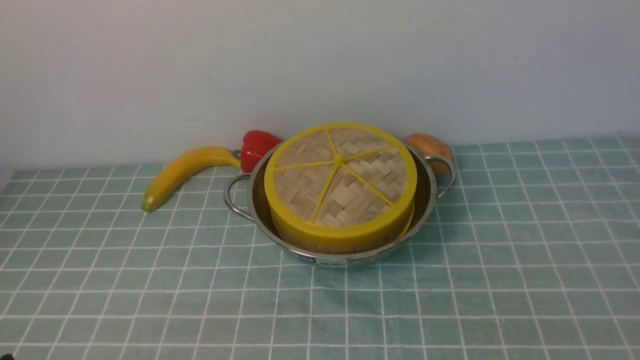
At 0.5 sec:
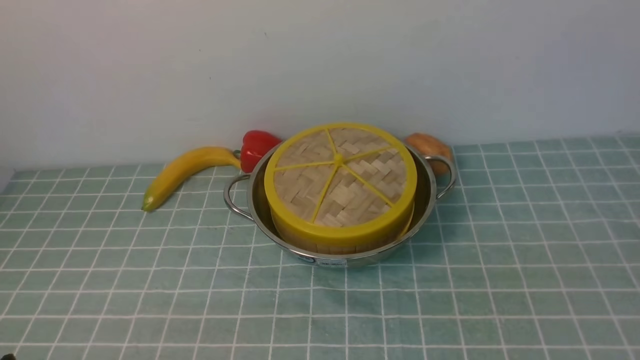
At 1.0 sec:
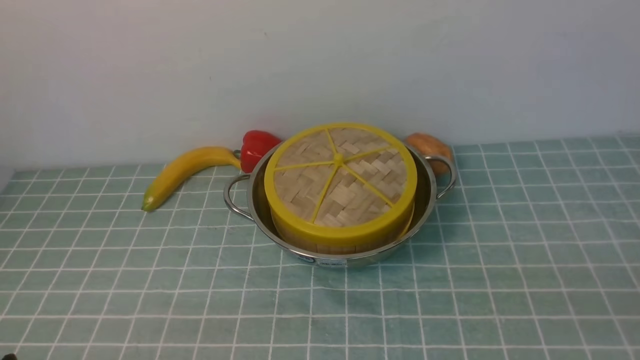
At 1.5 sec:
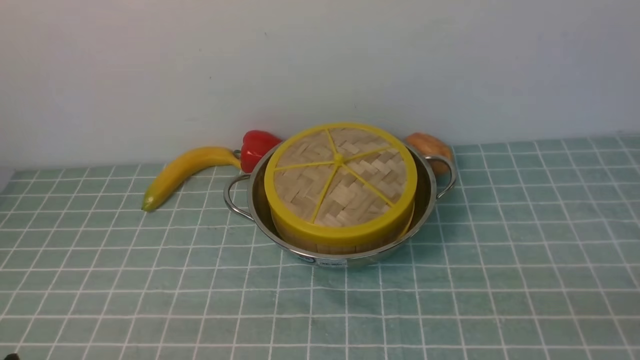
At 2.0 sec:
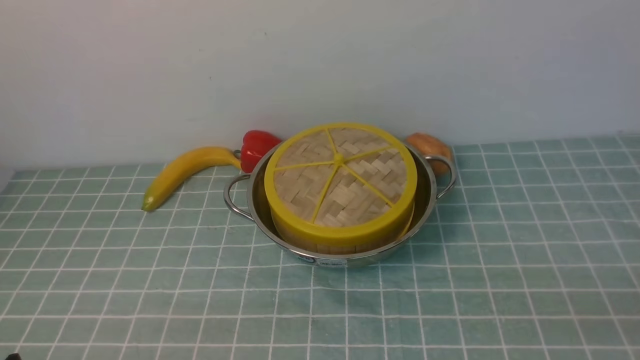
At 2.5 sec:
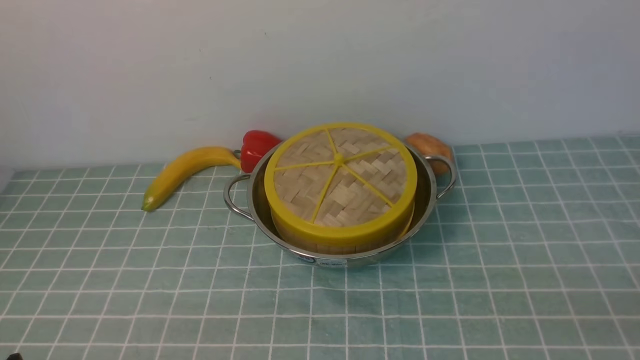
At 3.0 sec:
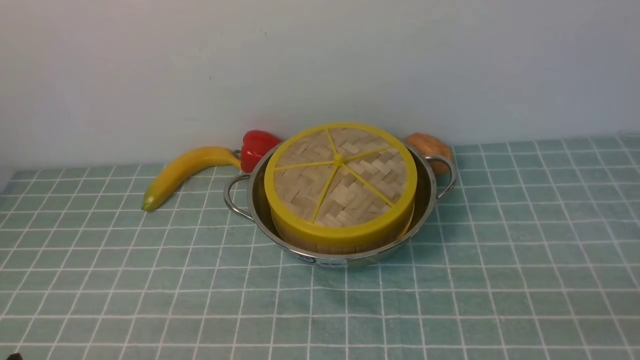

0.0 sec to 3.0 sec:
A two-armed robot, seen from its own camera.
Task of the whole recording: place the steamer in the pot on the blue tablecloth, and put the lid on the steamer.
1.5 sec to 3.0 sec: Neither gripper changes place.

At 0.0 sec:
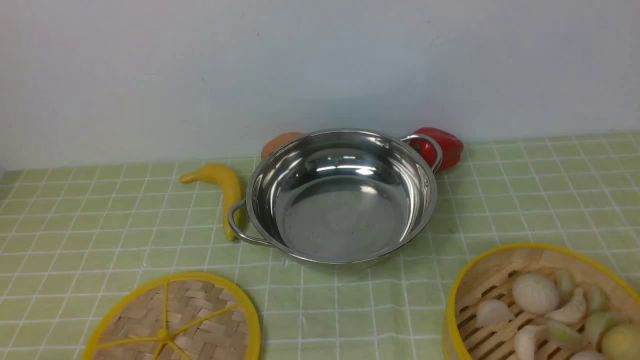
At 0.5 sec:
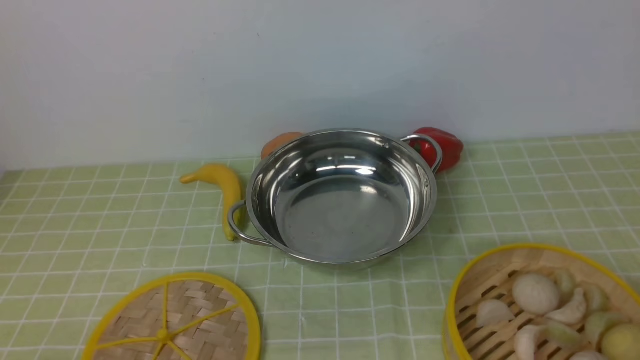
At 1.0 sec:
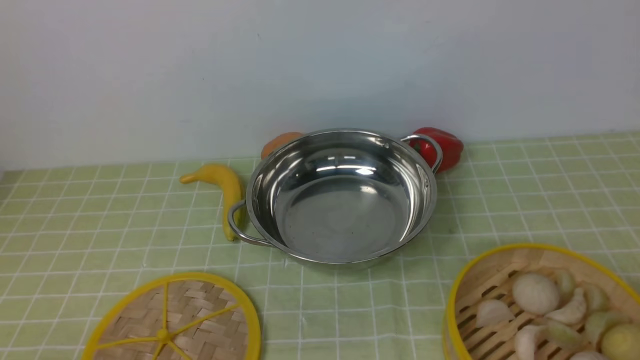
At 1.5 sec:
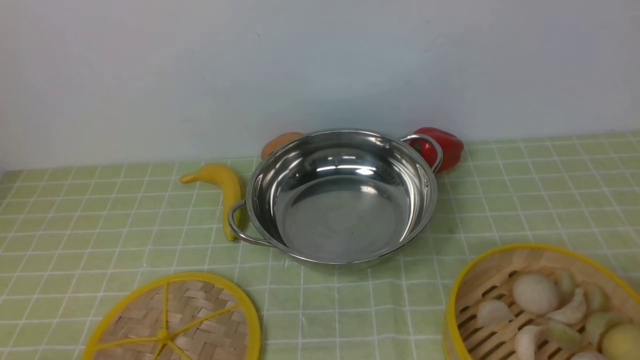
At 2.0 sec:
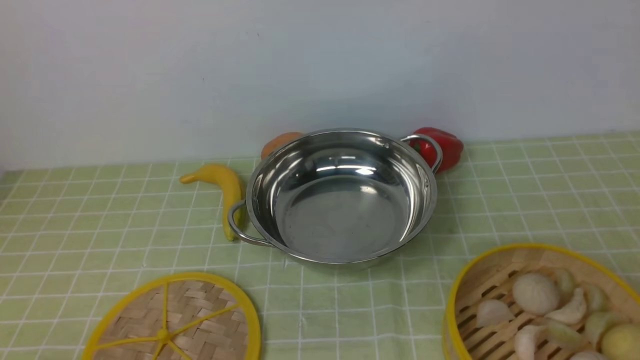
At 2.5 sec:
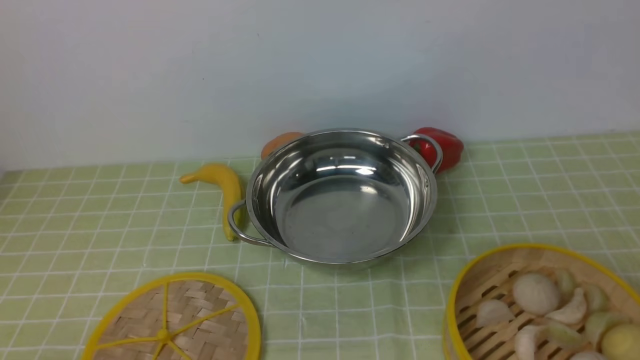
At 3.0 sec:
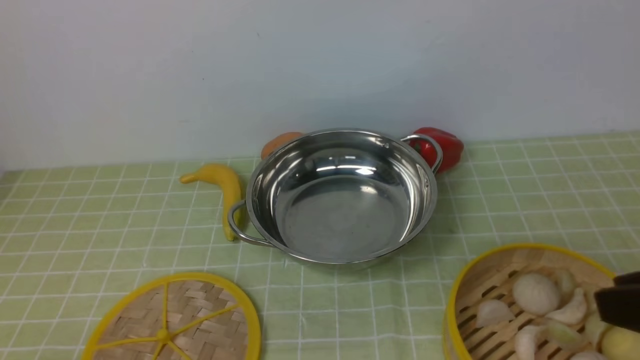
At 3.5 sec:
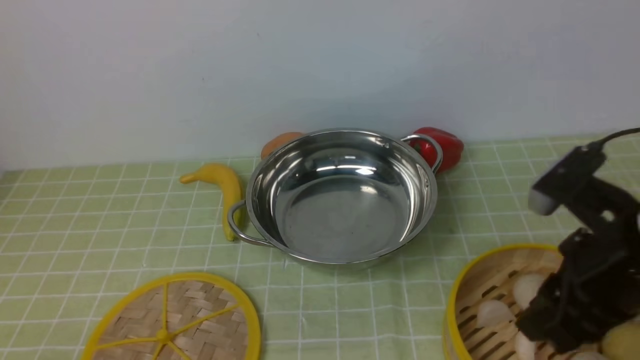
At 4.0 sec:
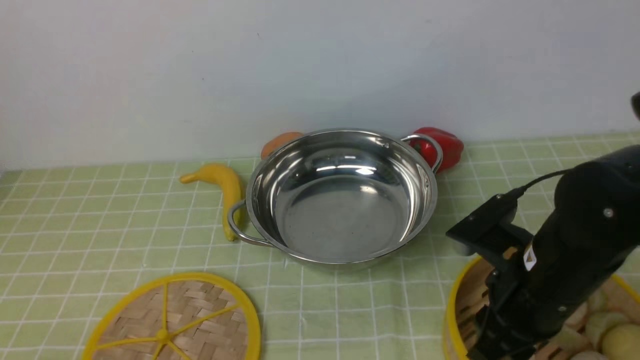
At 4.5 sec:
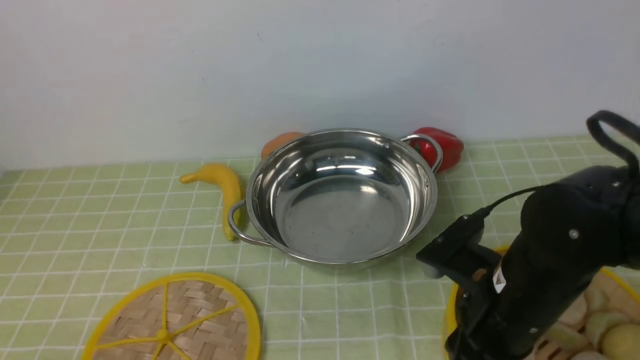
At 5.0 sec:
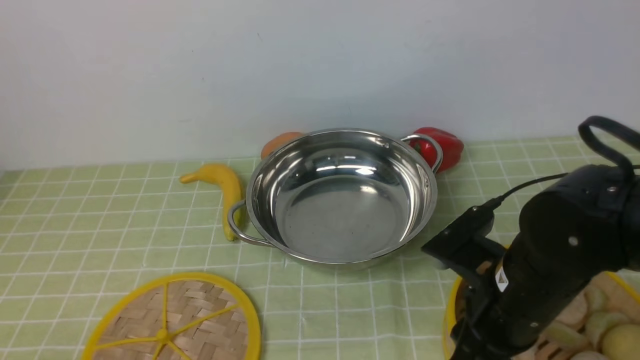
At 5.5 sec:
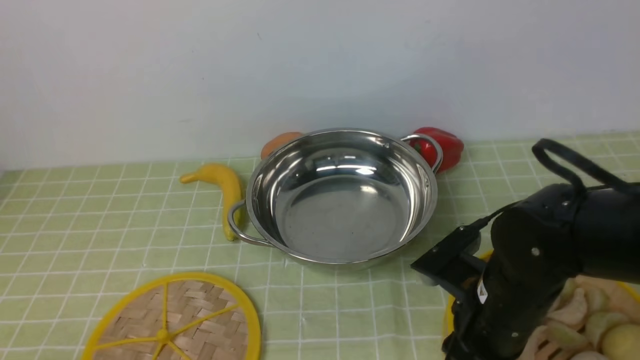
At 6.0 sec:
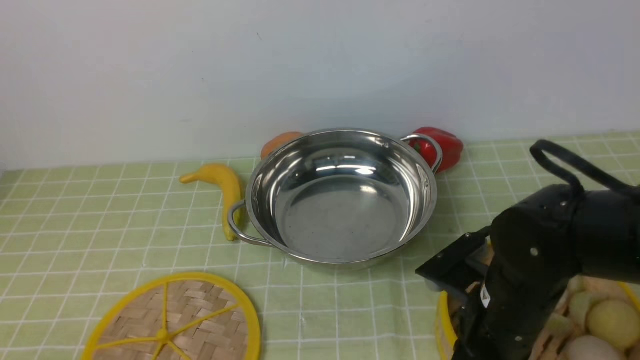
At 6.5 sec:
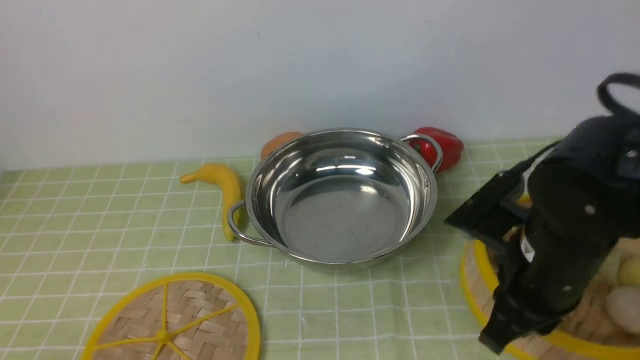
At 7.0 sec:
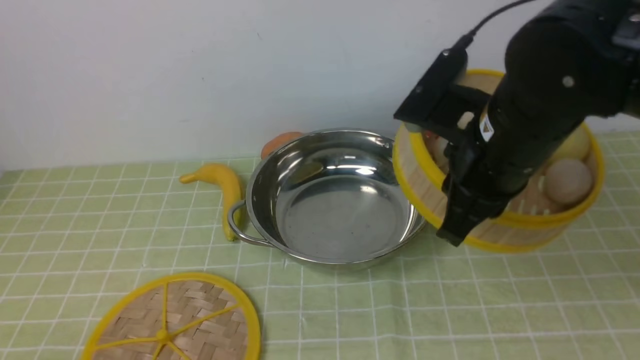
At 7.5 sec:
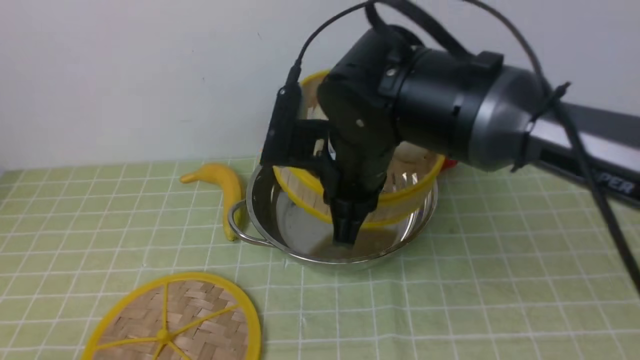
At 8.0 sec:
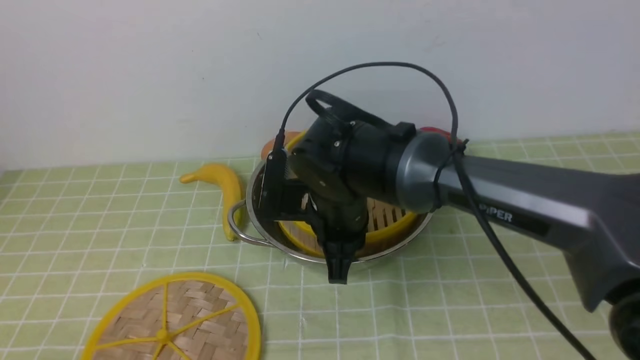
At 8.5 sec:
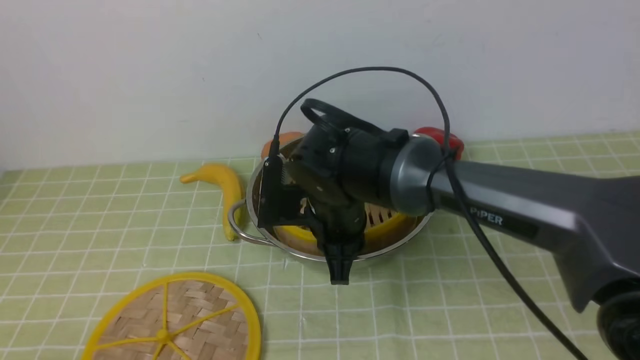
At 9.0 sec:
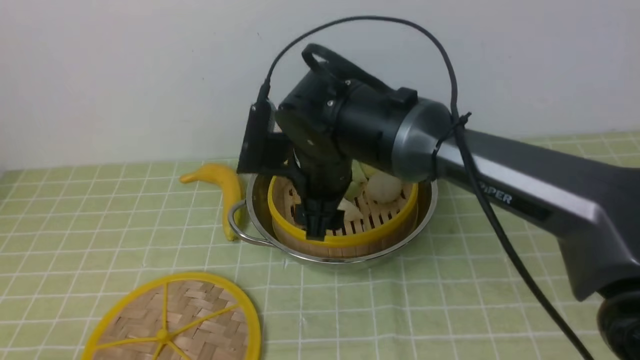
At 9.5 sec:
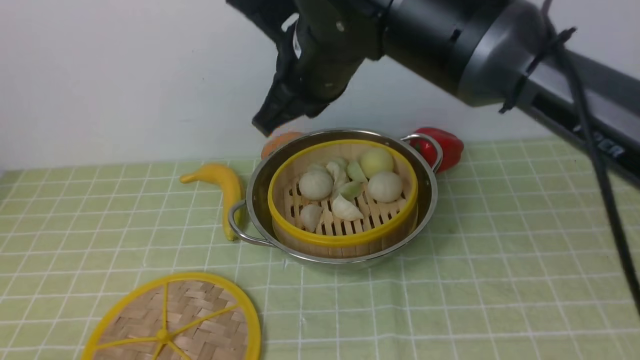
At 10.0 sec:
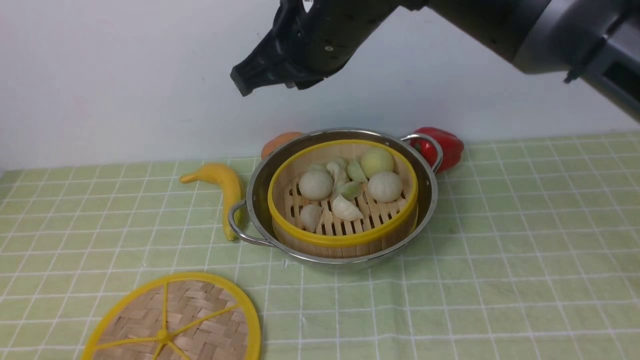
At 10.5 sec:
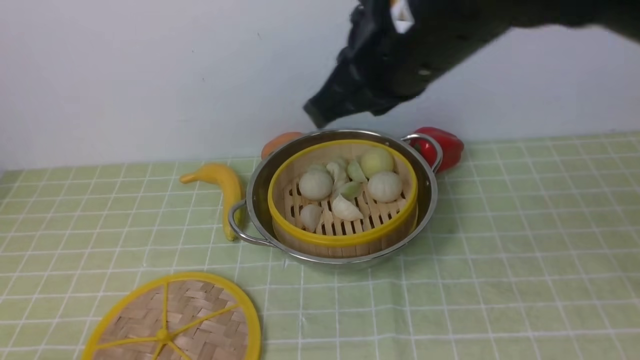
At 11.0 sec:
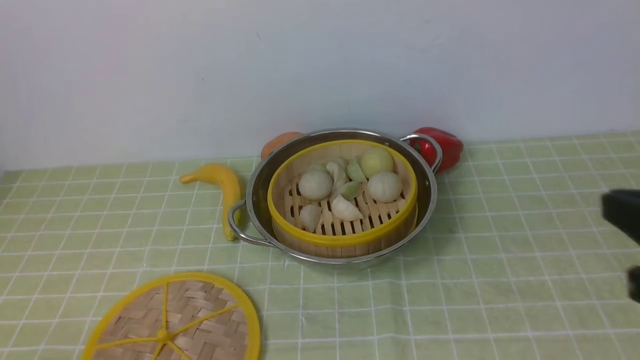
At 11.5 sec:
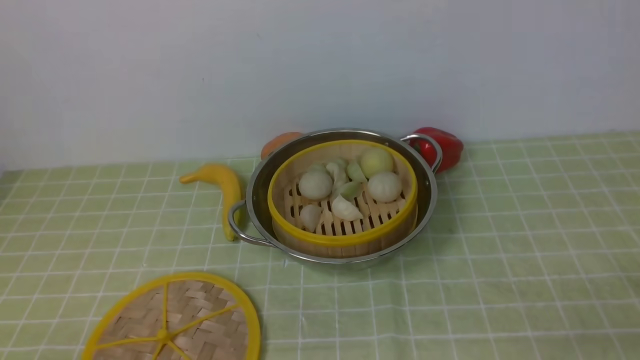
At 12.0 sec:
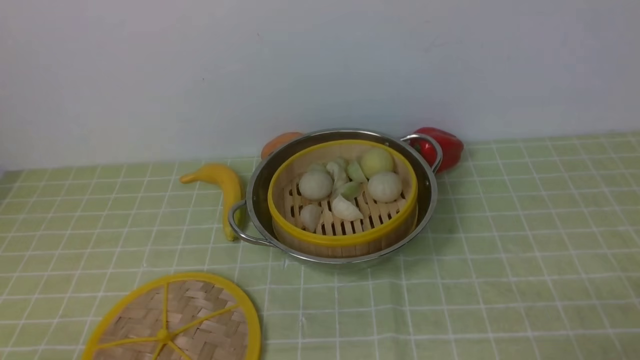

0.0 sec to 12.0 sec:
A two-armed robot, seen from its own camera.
Task of the whole recording: place the steamer in the pot on the green tablecloth, and put the lid on the steamer.
Step, 0.0 sec to 6.5 sec: use the right arm to lift the steamer closest to it.
Step, 7.0 sec to 9.5 sec: use the right arm to put the steamer into the iron steamer pot in the middle.
2.0 sec to 4.0 sec: The right gripper heads forward, to the left and downward, covering some 25 cm.
4.0 sec to 6.0 sec: The right gripper closes up.
6.0 sec to 8.0 sec: The right gripper is displaced to the left and forward by roughly 20 cm.
8.0 sec to 10.0 sec: The right gripper moves upward, some 20 cm, and opens, then closes again.
10.0 sec to 12.0 sec: The right gripper shifts about 50 cm to the right, backward and downward, and opens up.

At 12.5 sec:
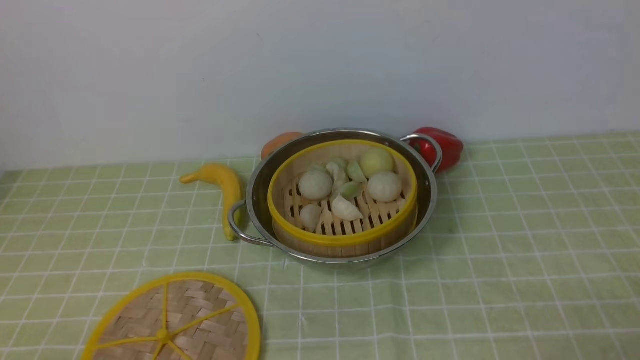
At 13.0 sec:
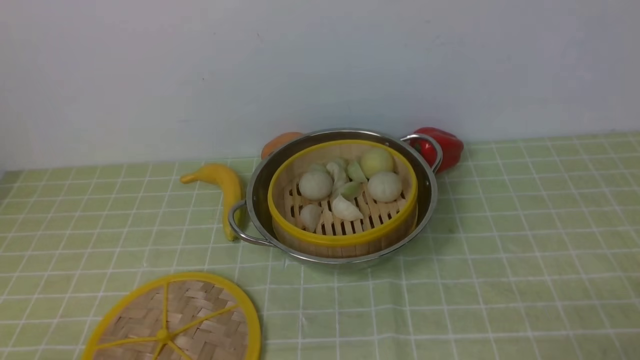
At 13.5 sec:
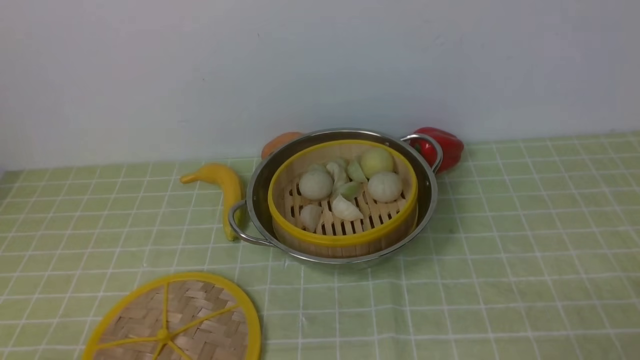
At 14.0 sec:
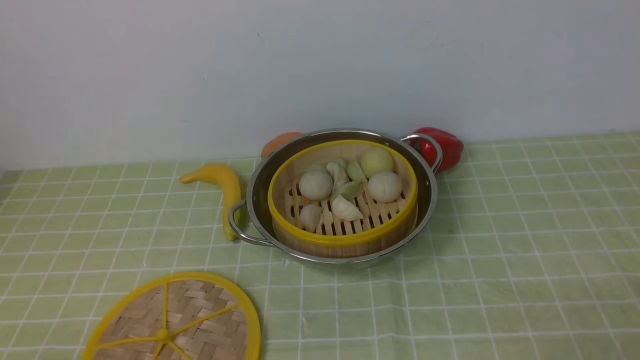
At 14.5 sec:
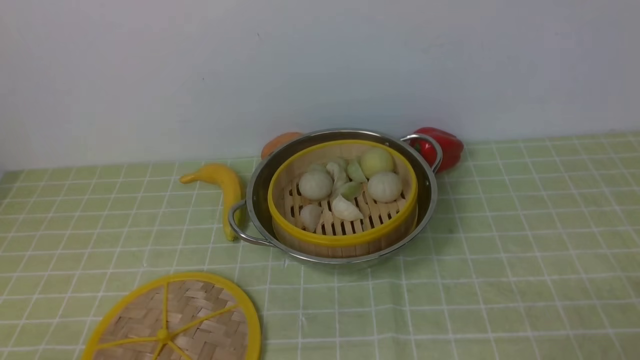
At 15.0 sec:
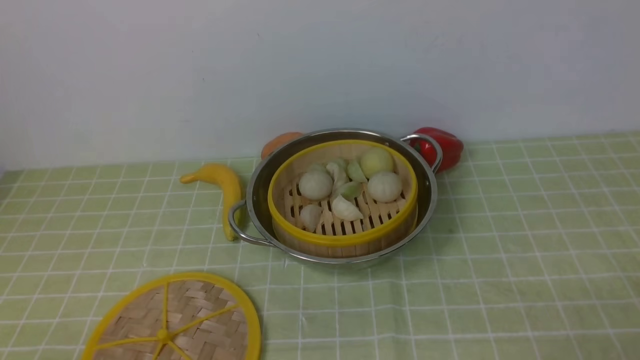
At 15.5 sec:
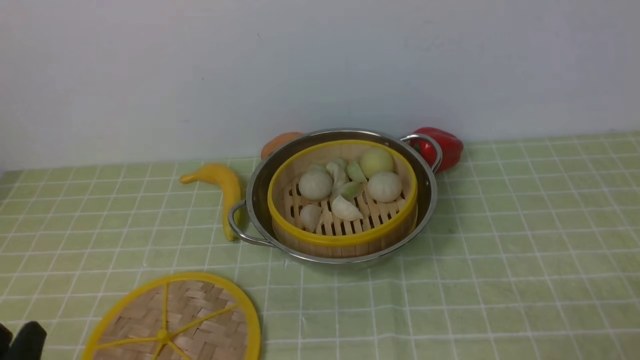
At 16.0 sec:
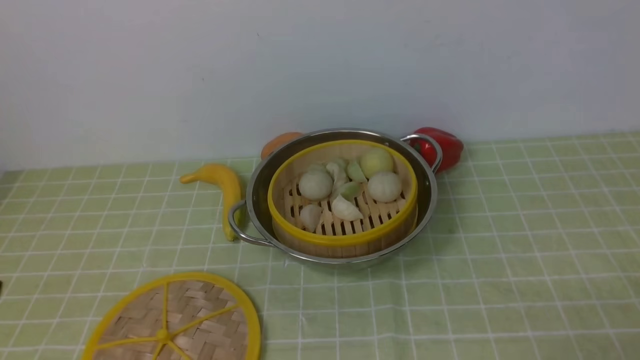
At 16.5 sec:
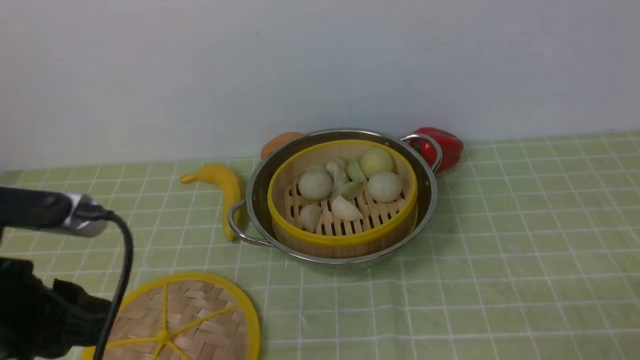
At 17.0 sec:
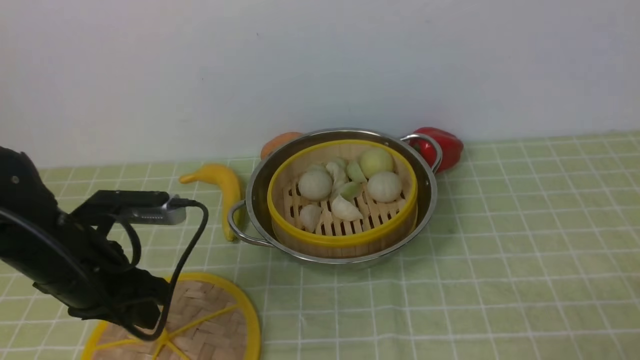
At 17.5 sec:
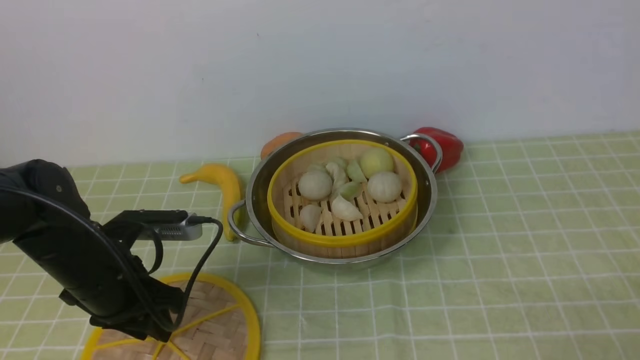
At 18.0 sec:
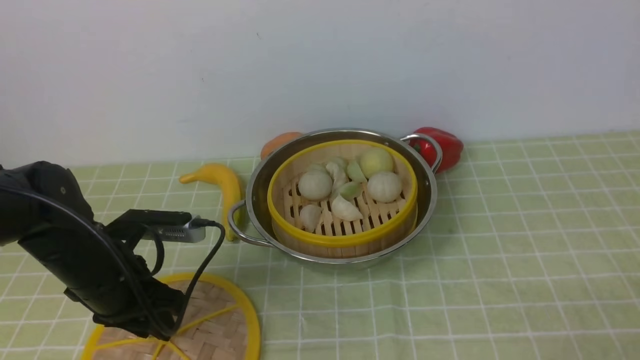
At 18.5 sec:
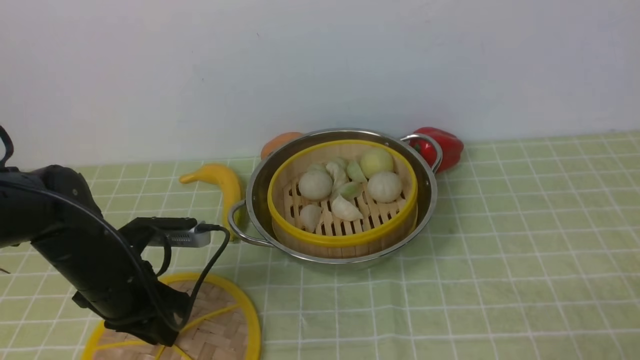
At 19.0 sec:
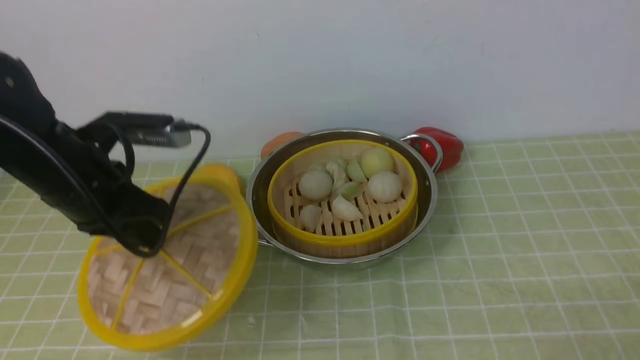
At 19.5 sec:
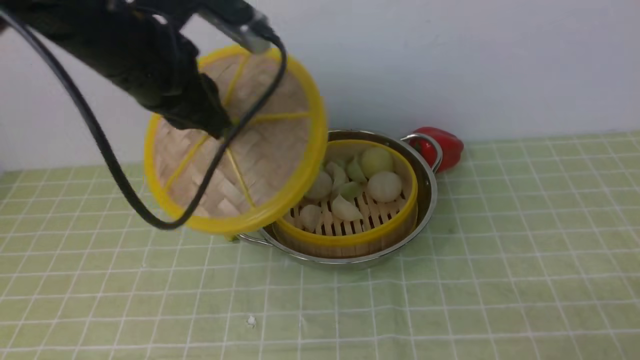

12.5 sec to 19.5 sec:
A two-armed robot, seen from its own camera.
Task of the whole recording: place the steamer in the pot on the green tablecloth, and put the lid on the steamer.
Step, 12.5 sec to 19.0 sec: use the left arm to lift the lid of the steamer.
16.0 sec to 17.5 sec: The left gripper heads forward, covering about 20 cm.
17.5 sec to 19.5 sec: The left gripper is displaced upward, to the right and forward by about 20 cm, and closes.
